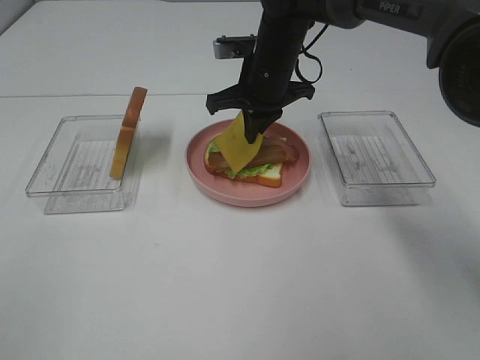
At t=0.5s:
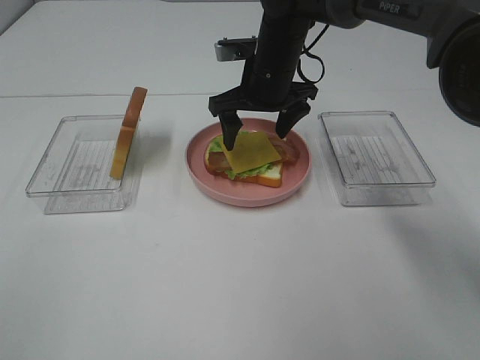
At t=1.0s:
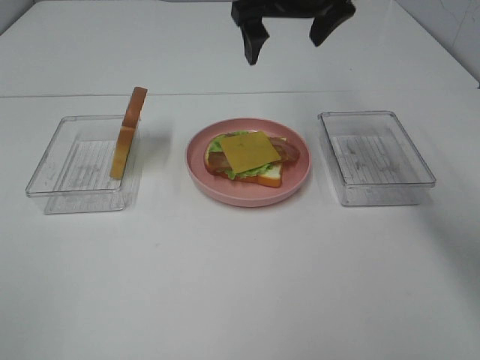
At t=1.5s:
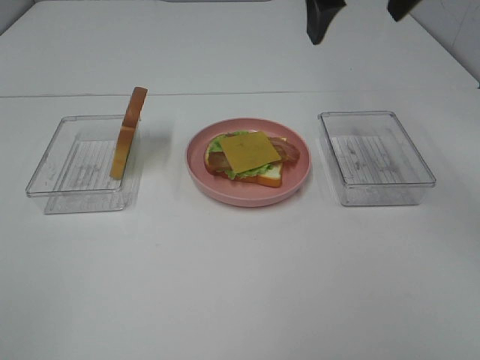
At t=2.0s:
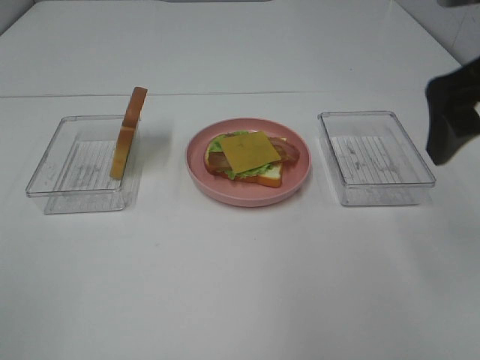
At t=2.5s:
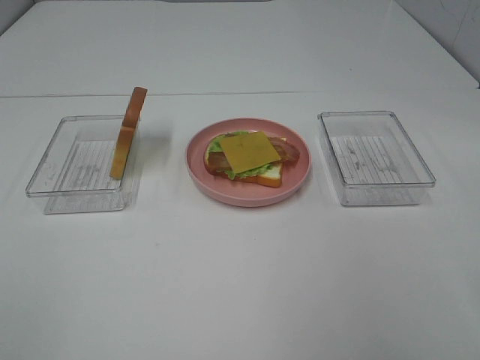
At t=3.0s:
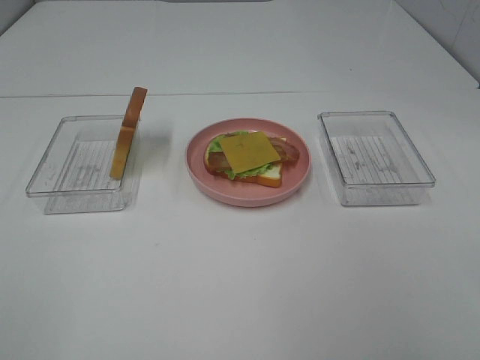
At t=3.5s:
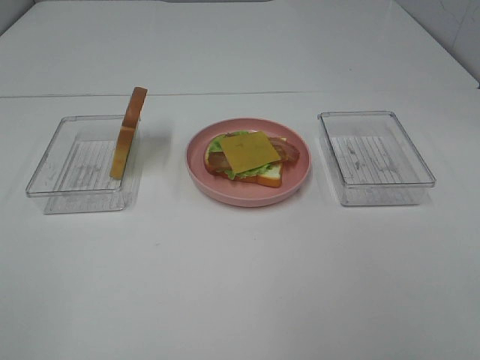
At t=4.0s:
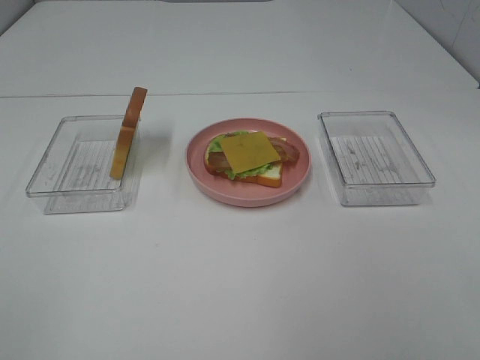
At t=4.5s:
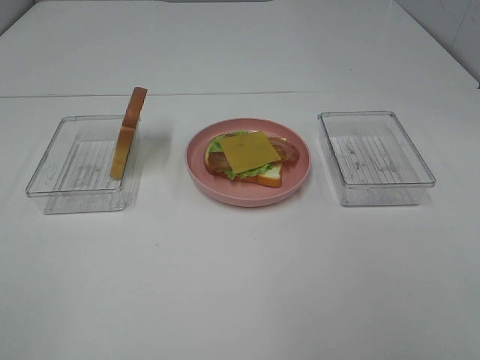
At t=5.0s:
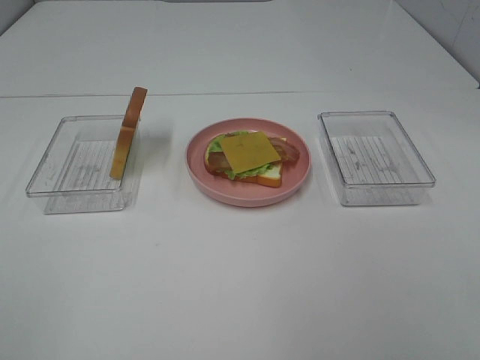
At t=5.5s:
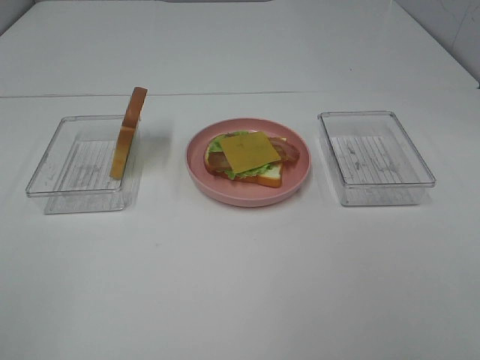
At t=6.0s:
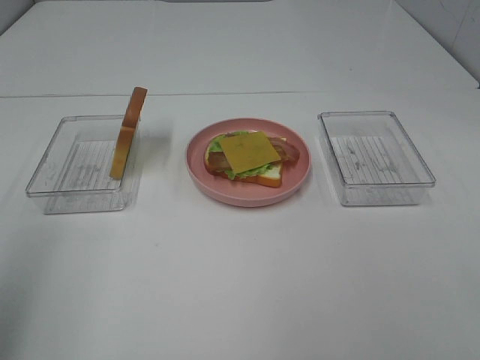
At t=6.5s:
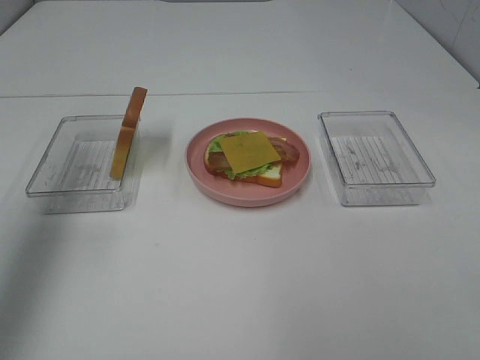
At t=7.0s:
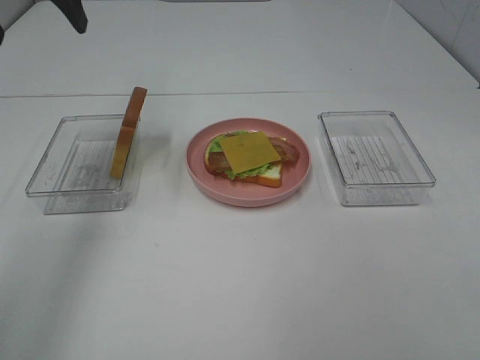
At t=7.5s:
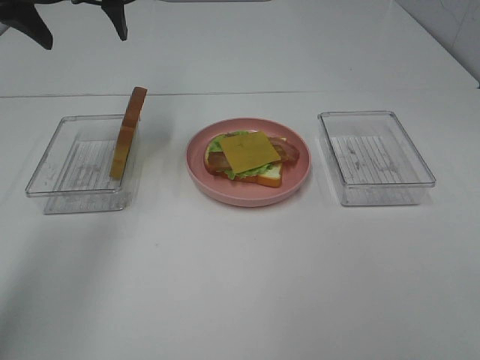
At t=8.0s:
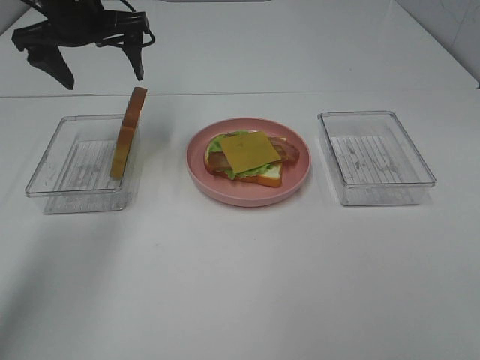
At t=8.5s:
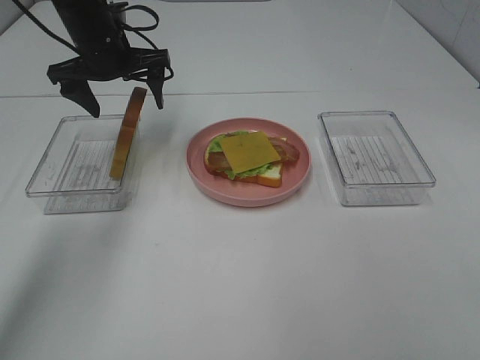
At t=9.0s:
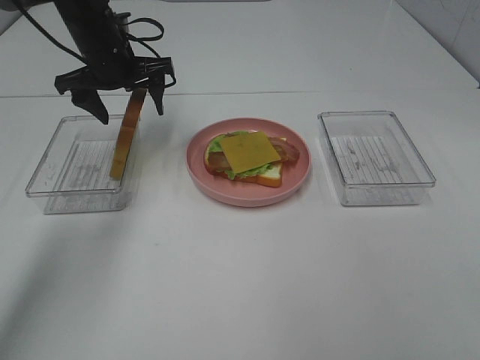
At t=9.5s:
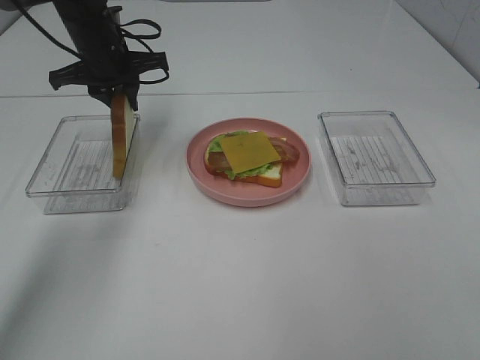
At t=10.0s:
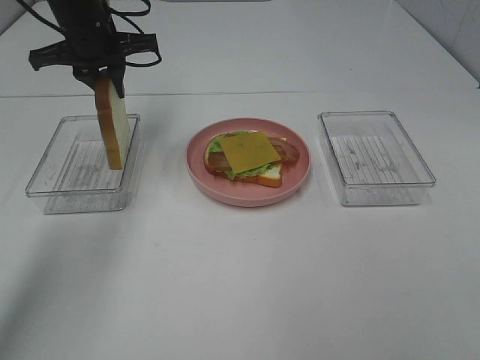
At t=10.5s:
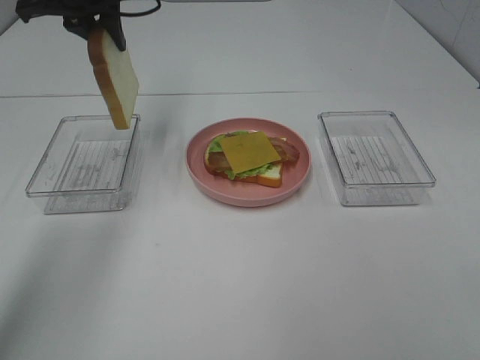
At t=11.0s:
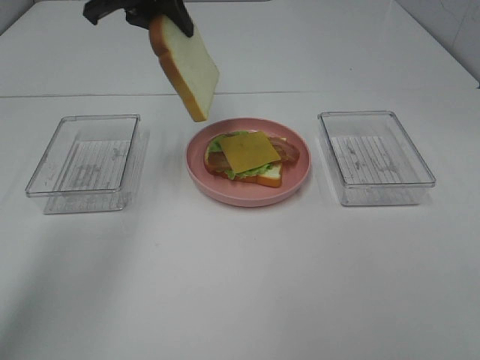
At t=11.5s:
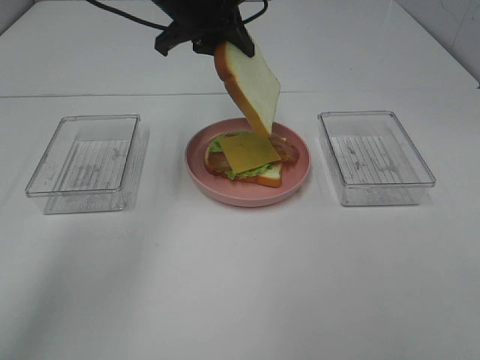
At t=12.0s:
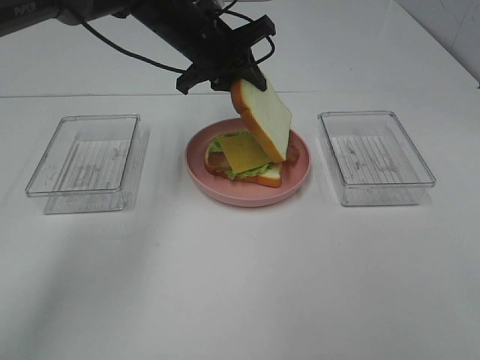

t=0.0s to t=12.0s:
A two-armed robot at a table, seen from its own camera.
Task of the whole recording: Make sandwiches.
Step, t=1.0s to t=10.0s: Left hand:grab the bread slice.
t=0.0s to t=2.0s: The right gripper is displaced backward, to the right and upward by some 30 cm, and opens its fingers.
t=2.0s to t=4.0s: The right gripper goes roughly 25 cm backward.
t=4.0s to t=6.0s: The left gripper moves forward and upward, approximately 15 cm.
t=6.0s to t=8.0s: The left gripper travels forward by about 35 cm.
t=8.0s to t=10.0s: The left gripper closes.
t=10.0s to t=12.0s: The left gripper is displaced to the right by approximately 15 cm.

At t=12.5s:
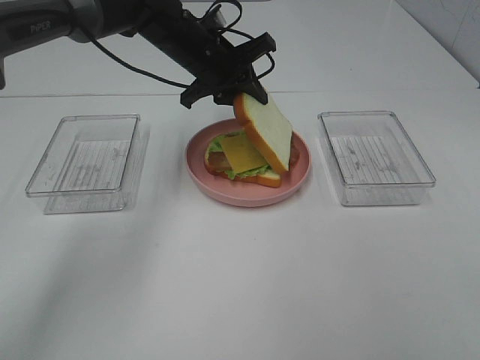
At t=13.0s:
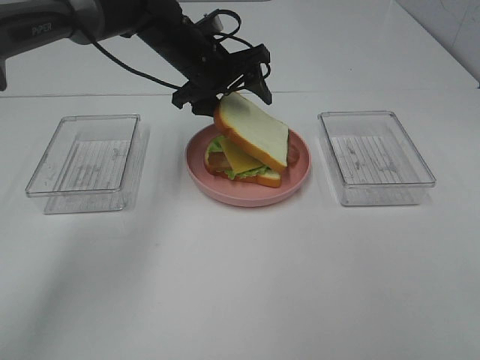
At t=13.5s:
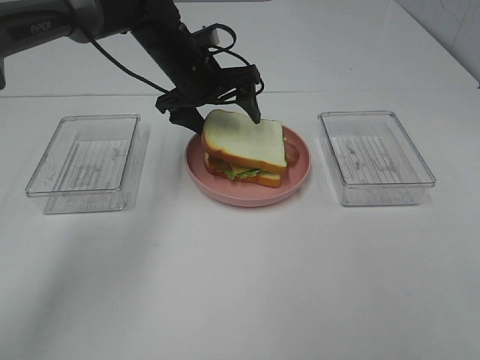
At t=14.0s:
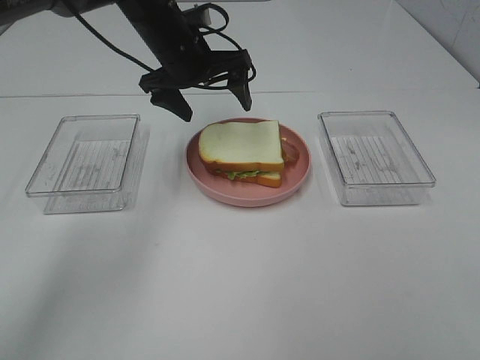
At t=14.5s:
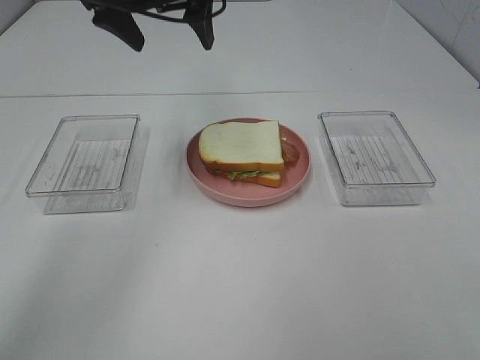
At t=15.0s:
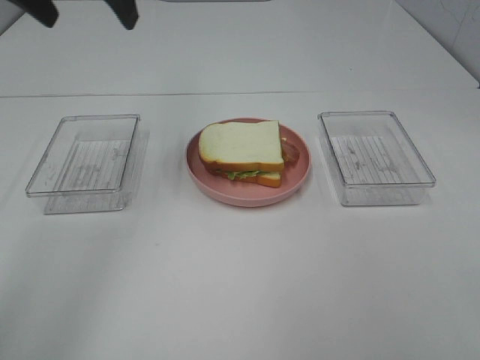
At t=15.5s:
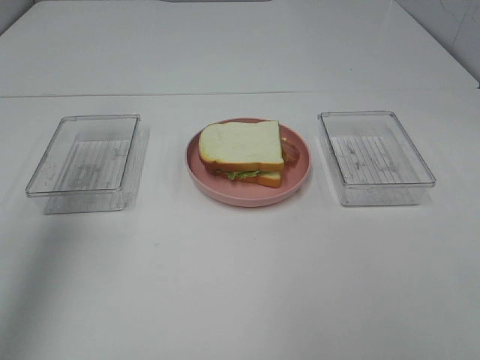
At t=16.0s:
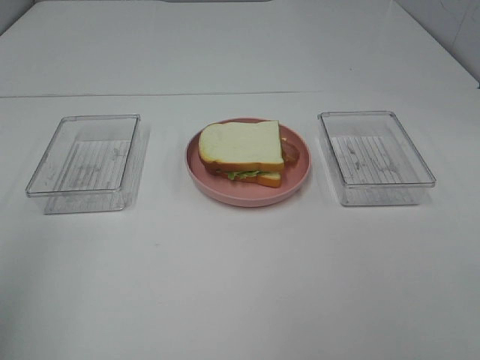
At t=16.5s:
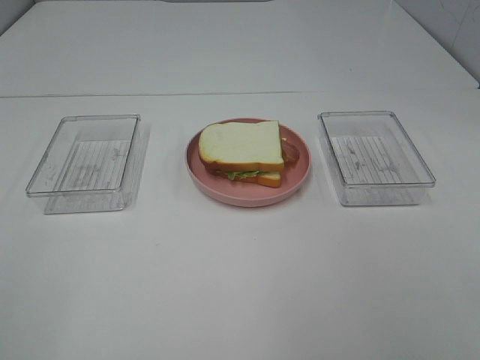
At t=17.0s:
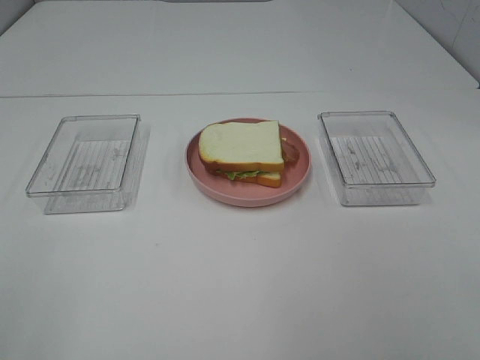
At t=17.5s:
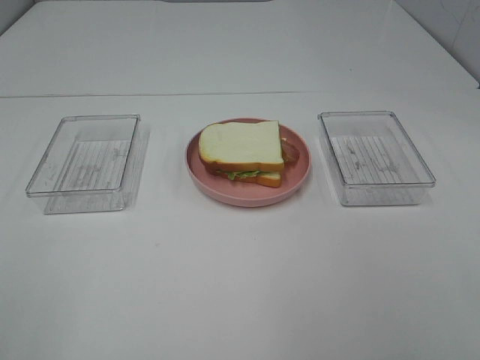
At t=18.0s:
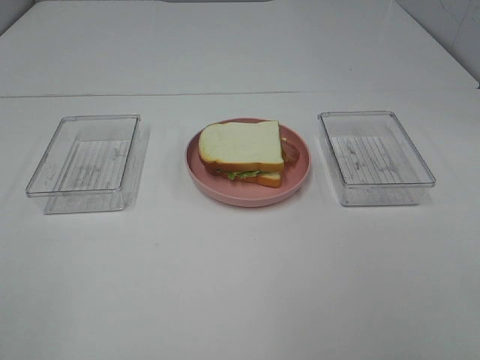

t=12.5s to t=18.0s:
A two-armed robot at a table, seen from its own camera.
Task of the whole recording: Make sandwiches.
t=12.5s to t=14.5s: The left gripper shifts approximately 15 cm upward and to the left, and opens up.
t=14.5s to t=16.0s: The left gripper travels backward and to the left by some 40 cm.

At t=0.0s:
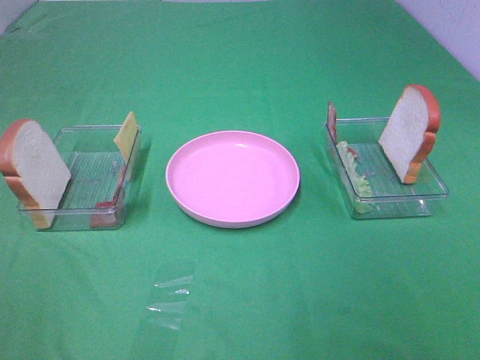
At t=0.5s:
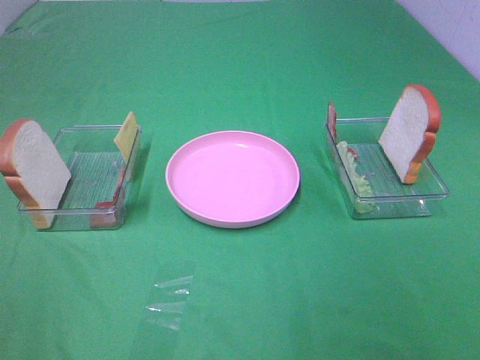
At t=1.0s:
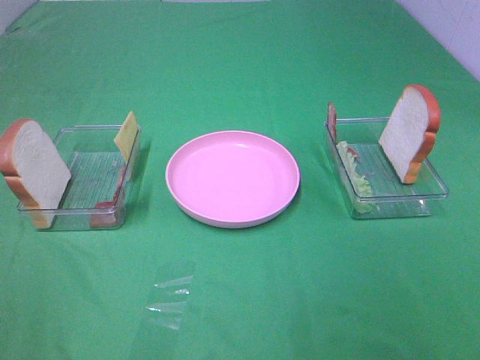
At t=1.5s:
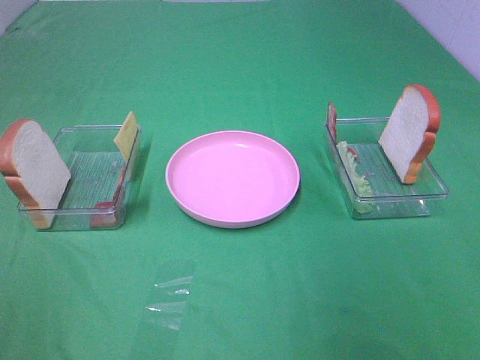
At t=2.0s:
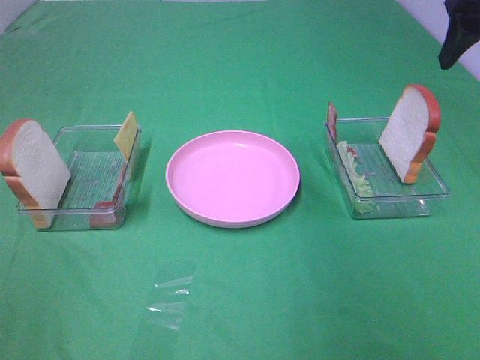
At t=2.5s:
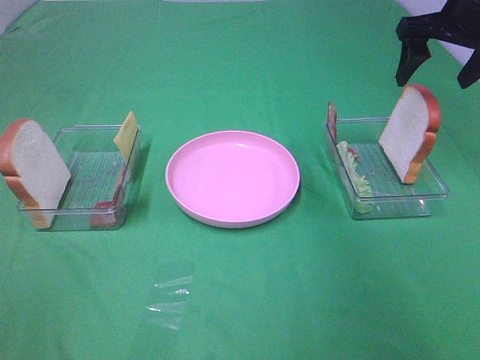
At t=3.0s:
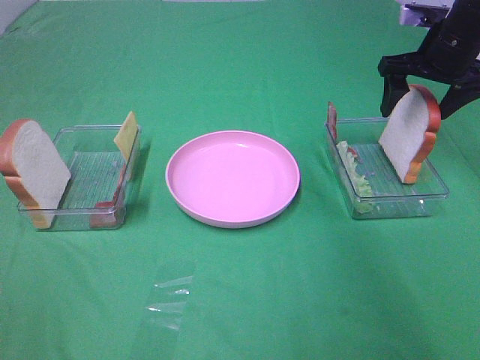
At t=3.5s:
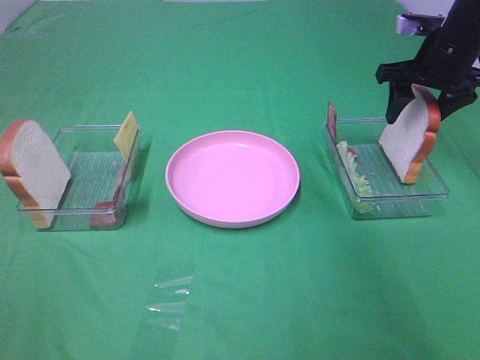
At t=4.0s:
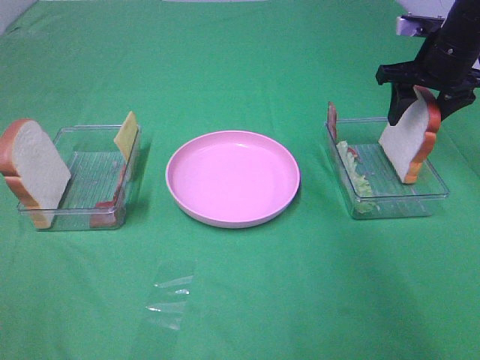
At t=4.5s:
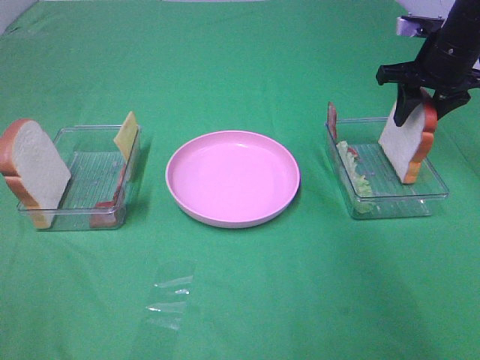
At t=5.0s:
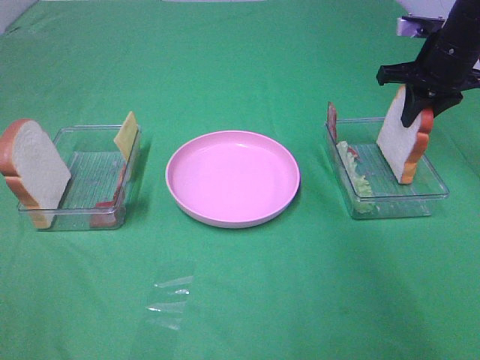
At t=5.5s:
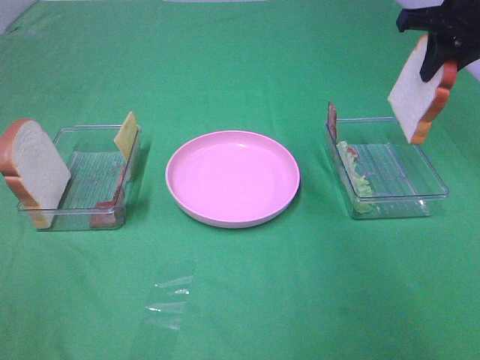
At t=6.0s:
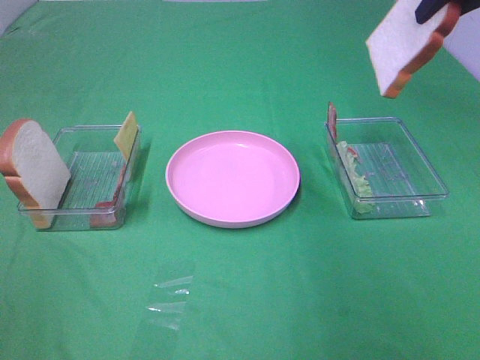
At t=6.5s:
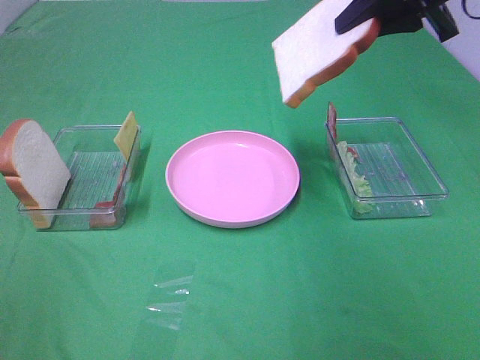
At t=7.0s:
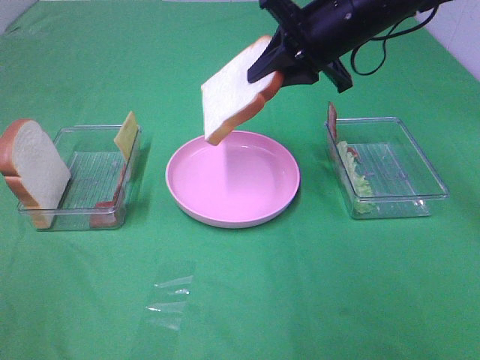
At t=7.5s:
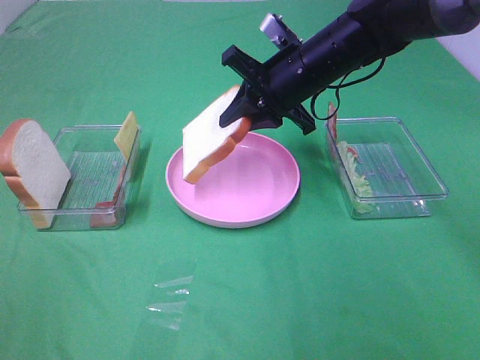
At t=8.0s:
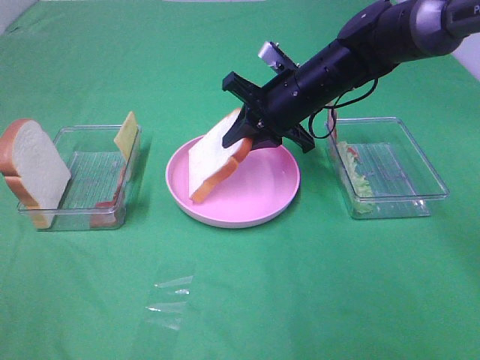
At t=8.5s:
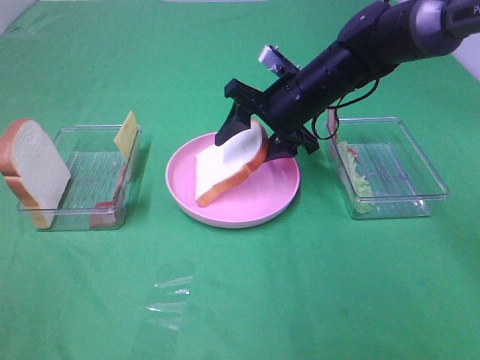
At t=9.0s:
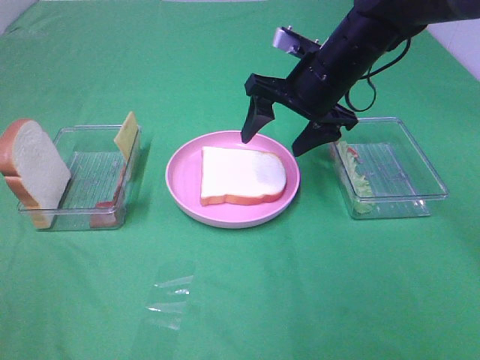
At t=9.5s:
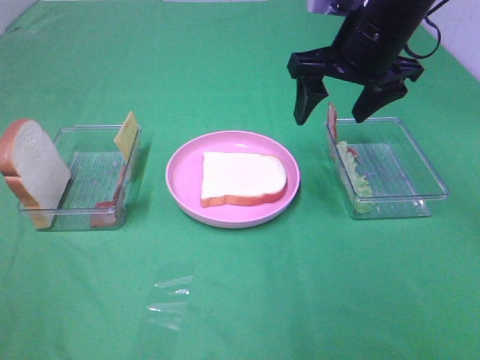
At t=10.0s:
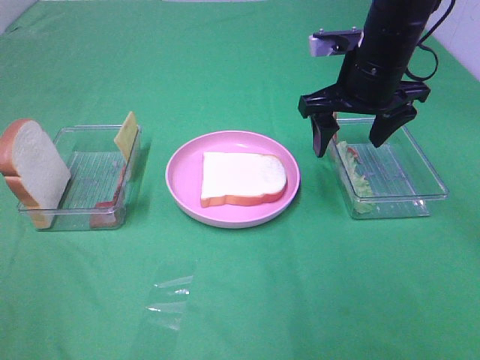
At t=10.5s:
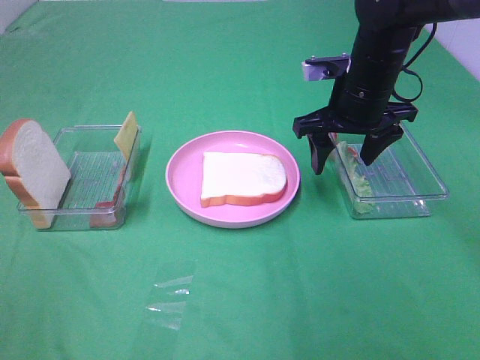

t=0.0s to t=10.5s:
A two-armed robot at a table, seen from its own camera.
Task of the whole recording: Make sandwiches.
Step, t=0.0s to t=4.5s: Right hand:grab the bread slice.
Step, t=5.0s to t=9.0s: Right hand:place the bread slice on the plate.
t=0.0s to t=2.0s: The right gripper goes roughly 35 cm forward.
t=2.0s to t=4.0s: The right gripper travels downward and forward by approximately 15 cm.
t=4.0s to t=6.5s: The right gripper goes roughly 15 cm upward, to the left and backward, and closes its fingers.
t=6.5s to t=8.5s: The right gripper heads downward and to the left, covering some 20 cm, and opens.
t=8.5s to t=10.5s: The right gripper goes roughly 5 cm to the right, and goes upward and returns, approximately 10 cm each way.
